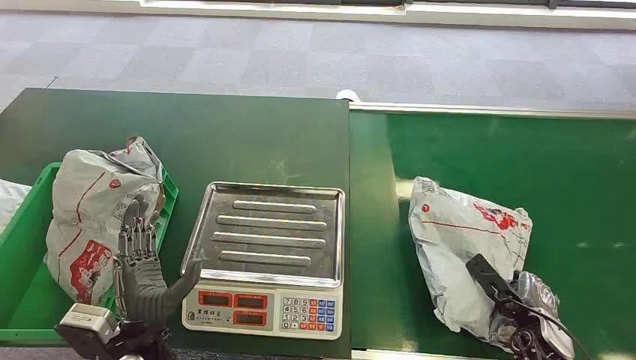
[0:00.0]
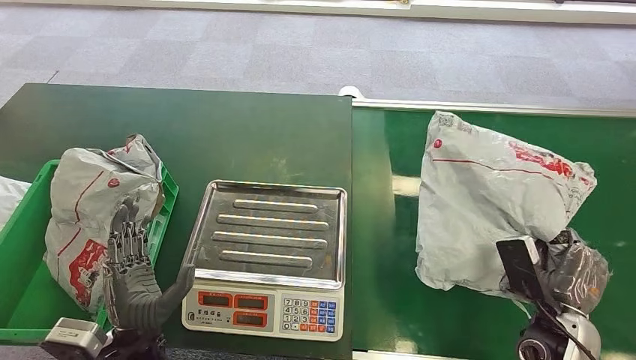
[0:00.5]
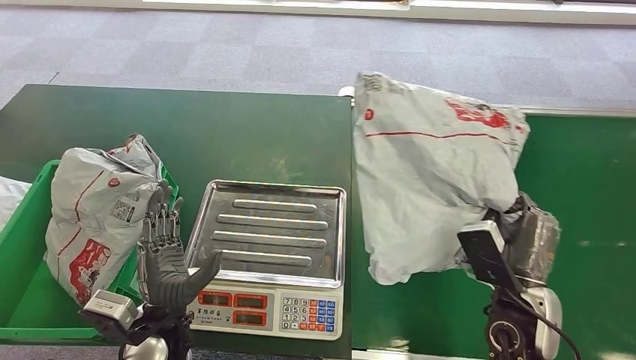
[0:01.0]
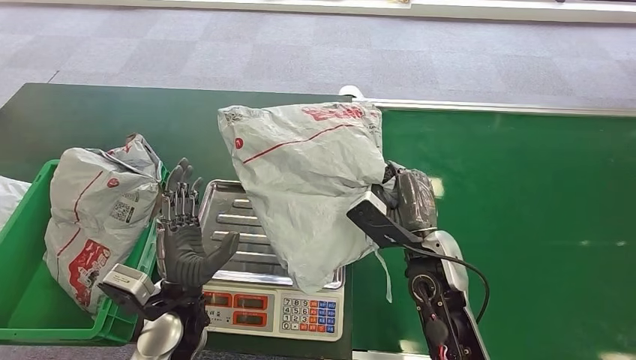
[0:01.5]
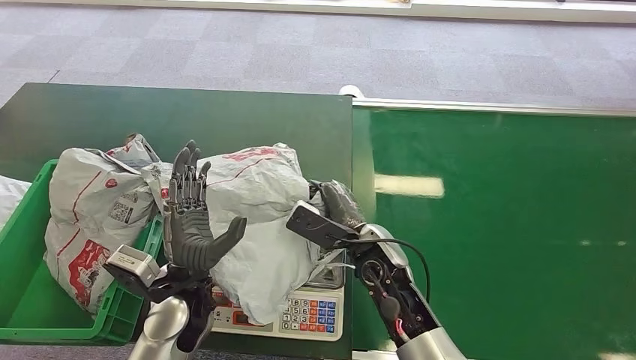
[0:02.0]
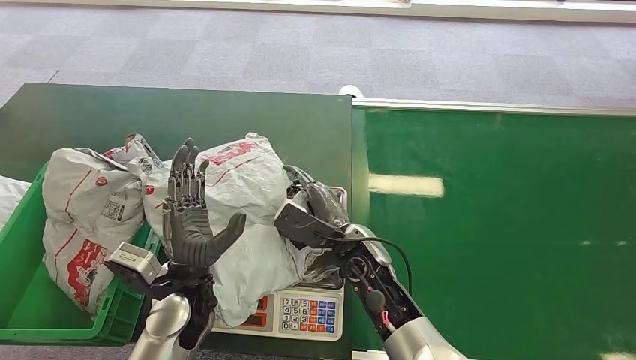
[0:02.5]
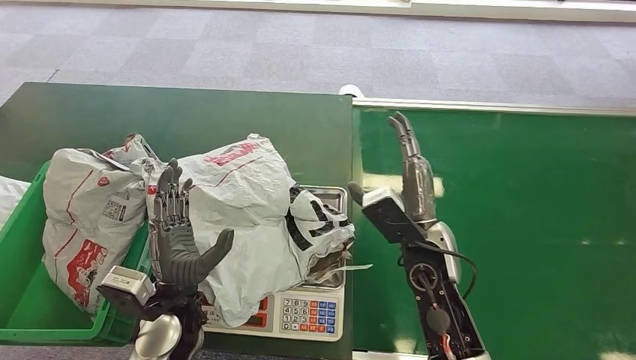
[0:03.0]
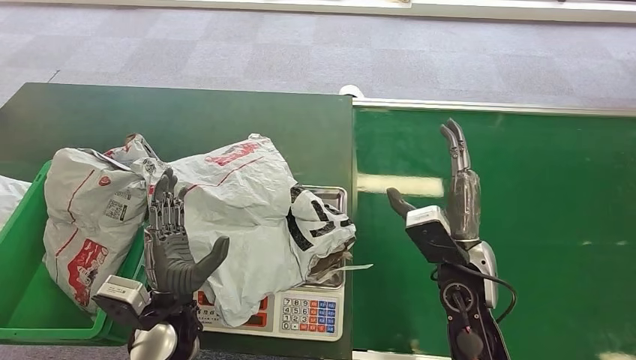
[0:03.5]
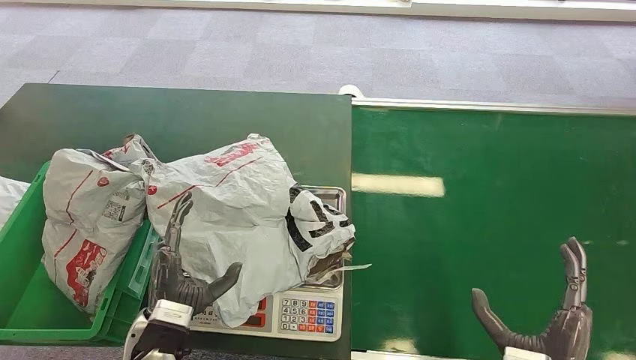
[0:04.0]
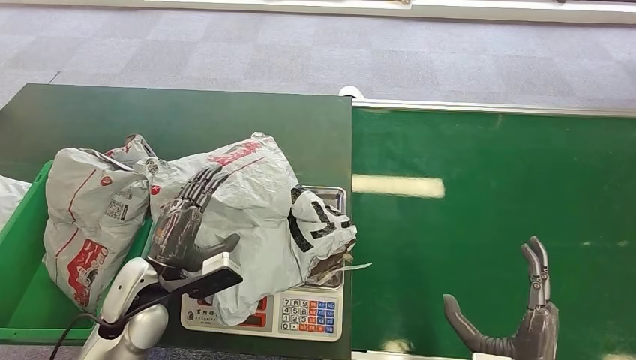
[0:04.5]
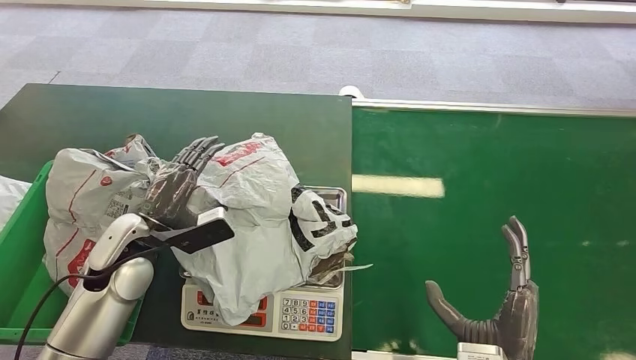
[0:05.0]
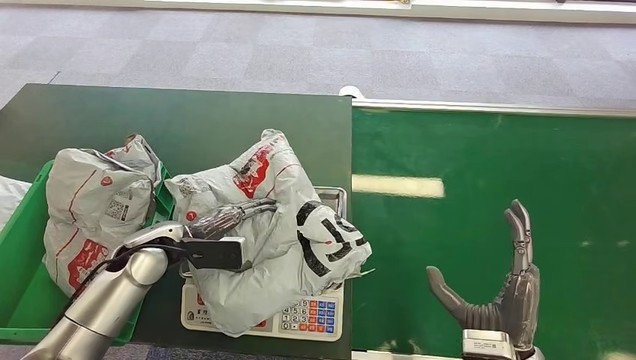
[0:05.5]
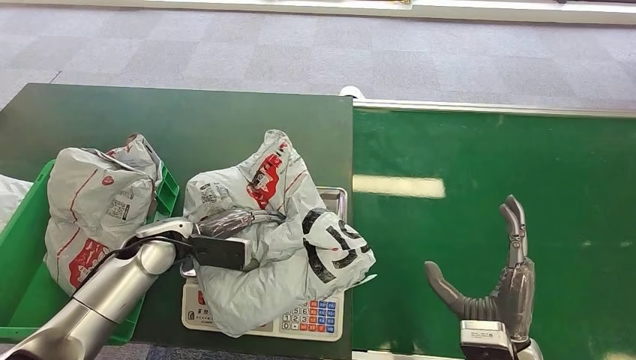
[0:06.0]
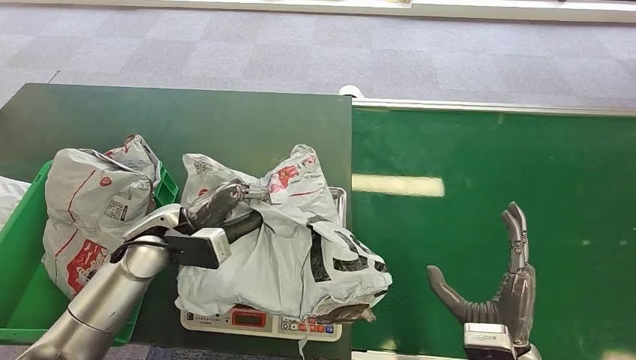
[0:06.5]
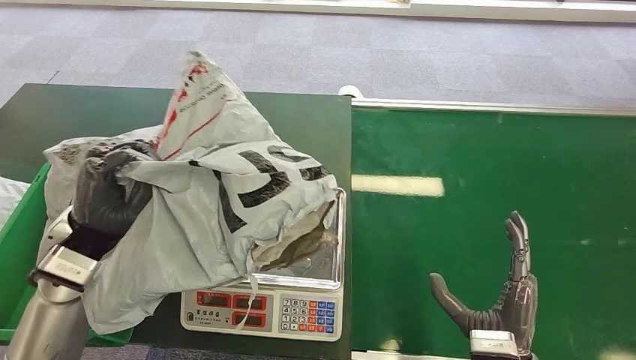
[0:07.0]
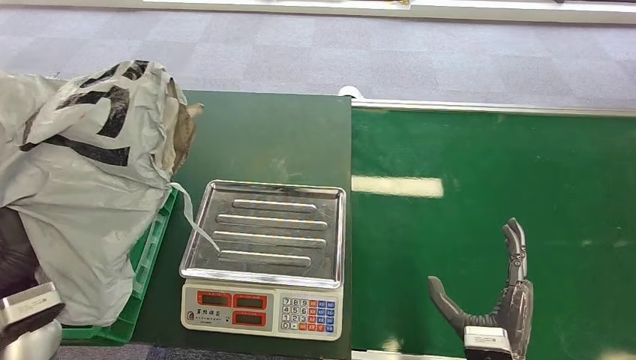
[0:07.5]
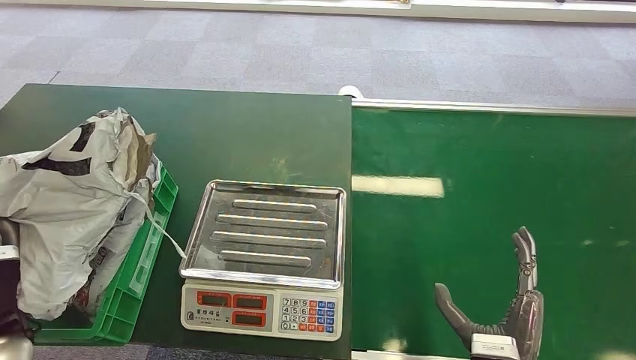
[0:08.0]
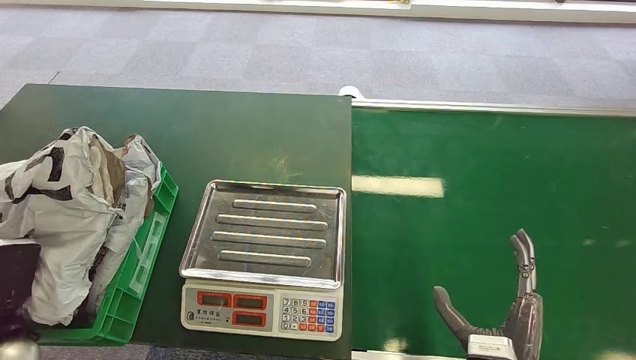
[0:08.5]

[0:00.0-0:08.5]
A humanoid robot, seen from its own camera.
Step, 0:00.0 to 0:00.5: Pick up the package from the conveyor belt.
Step, 0:01.5 to 0:03.0: Place the package onto the inbound machine.
Step, 0:04.5 to 0:06.5: Pick up the package from the inbound machine.
Step, 0:07.5 to 0:08.5: Place the package into the parcel locker.
0:02.0 to 0:04.0: The right hand travels backward and to the right by about 25 cm, while the left hand goes roughly 5 cm backward.

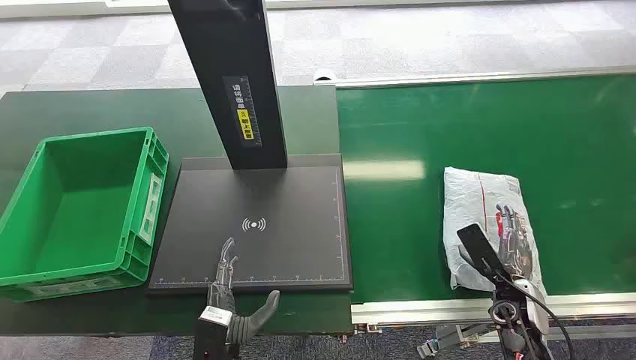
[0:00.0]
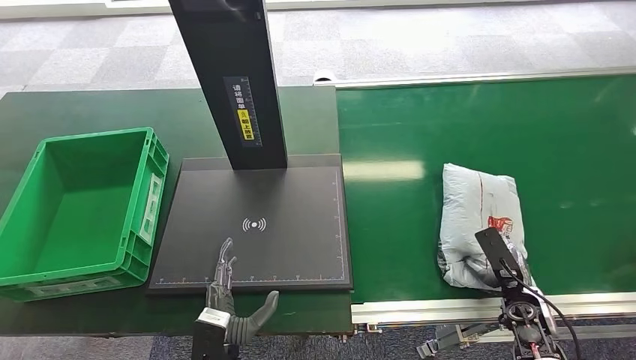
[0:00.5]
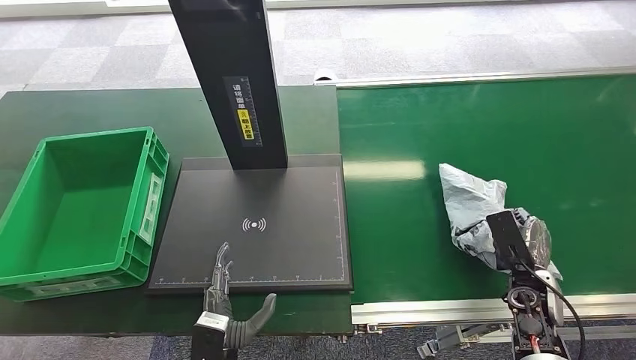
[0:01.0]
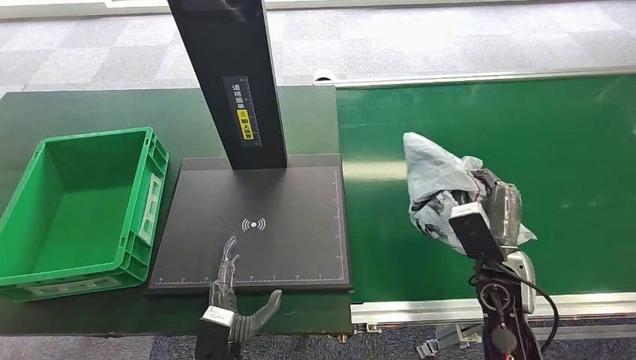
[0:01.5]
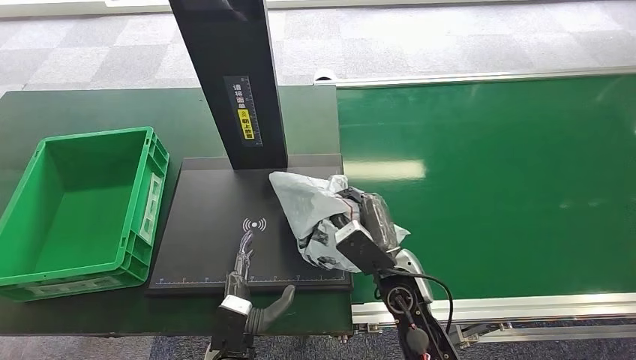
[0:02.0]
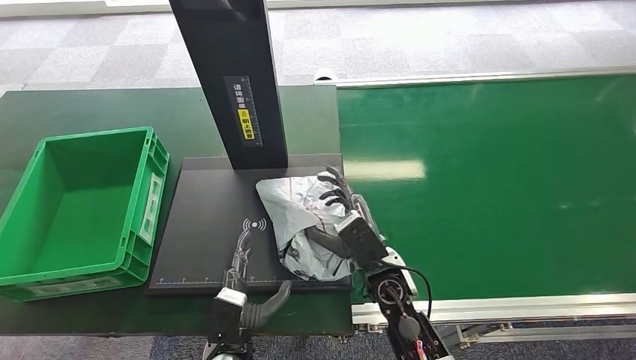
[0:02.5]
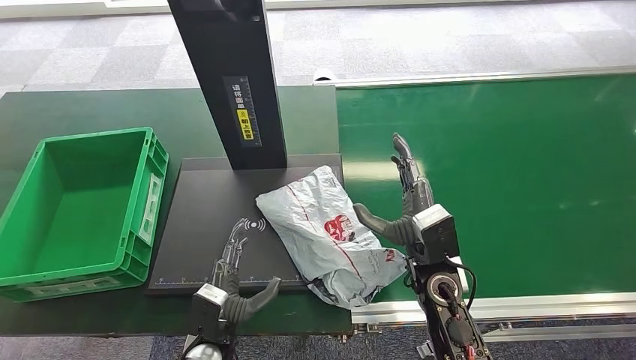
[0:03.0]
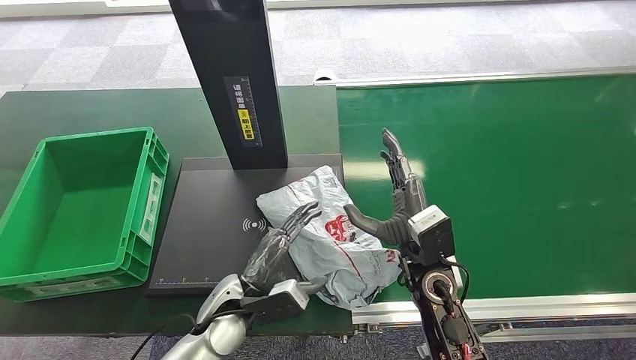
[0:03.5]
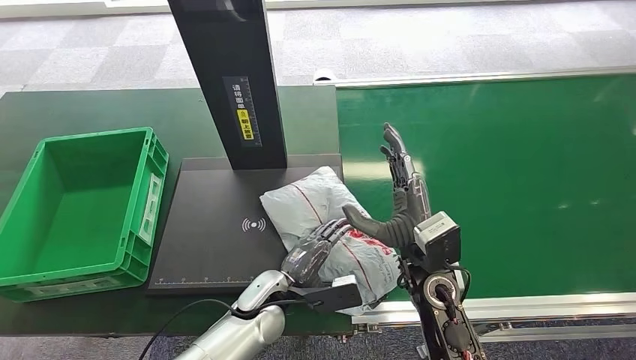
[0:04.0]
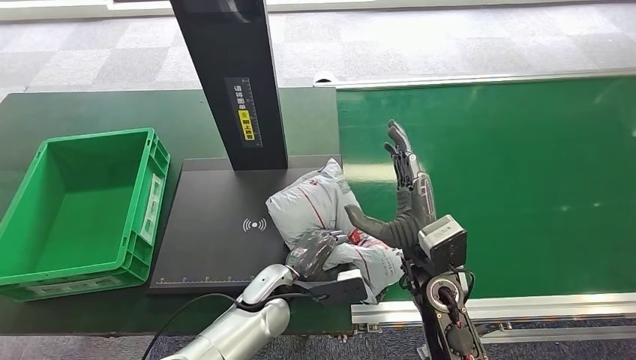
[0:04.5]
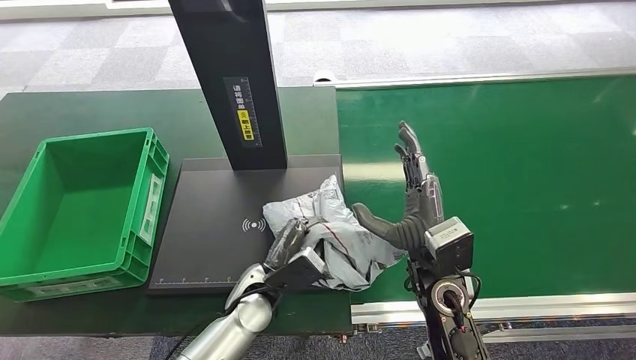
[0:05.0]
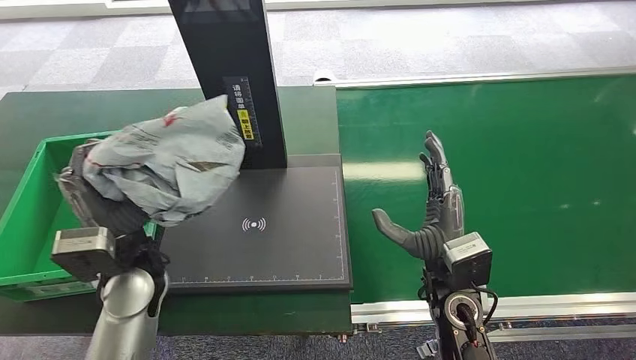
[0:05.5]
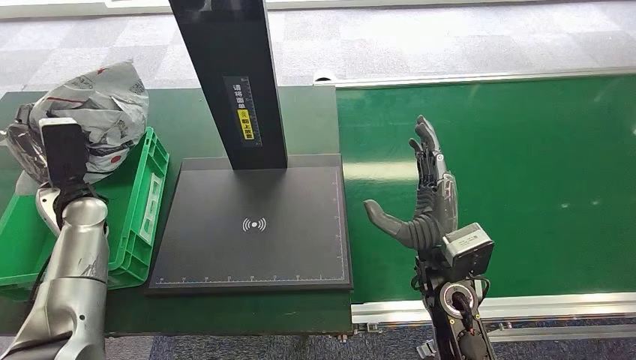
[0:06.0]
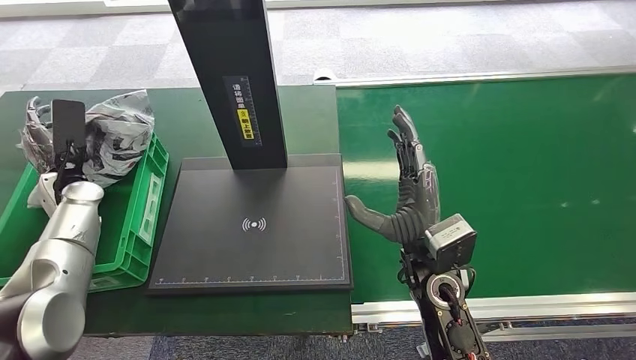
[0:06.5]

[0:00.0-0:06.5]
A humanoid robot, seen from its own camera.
Step, 0:00.0 to 0:01.0: Pick up the package from the conveyor belt.
Step, 0:01.5 to 0:02.5: Place the package onto the inbound machine.
Step, 0:03.0 to 0:05.0: Pick up the package from the inbound machine.
Step, 0:05.5 to 0:06.5: Place the package into the parcel locker.
0:02.0 to 0:04.5: The left hand moves forward, about 10 cm. Meanwhile the right hand goes approximately 5 cm upward.
